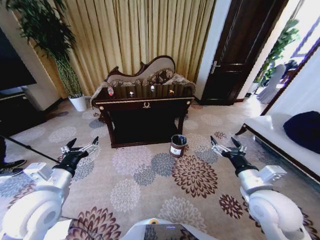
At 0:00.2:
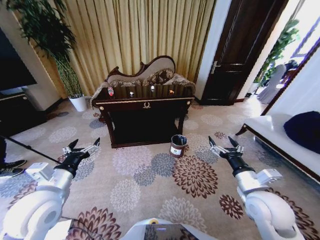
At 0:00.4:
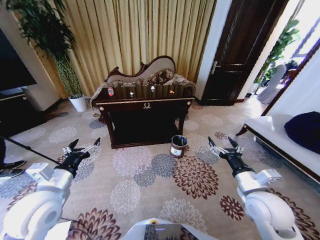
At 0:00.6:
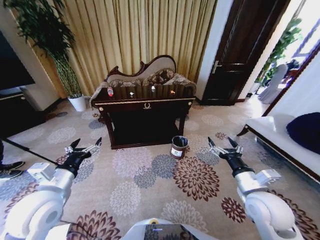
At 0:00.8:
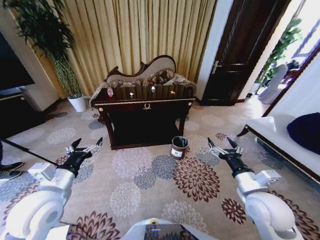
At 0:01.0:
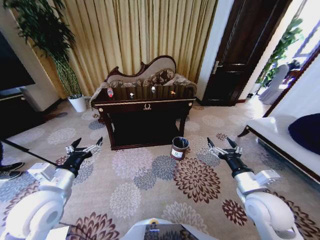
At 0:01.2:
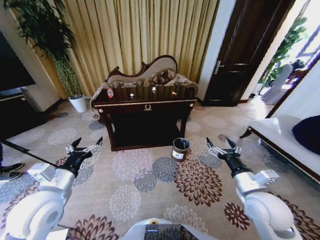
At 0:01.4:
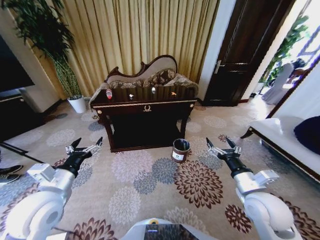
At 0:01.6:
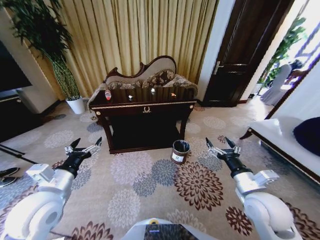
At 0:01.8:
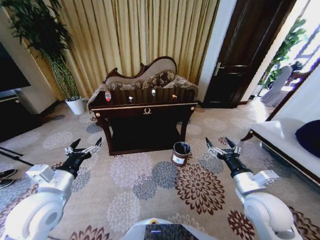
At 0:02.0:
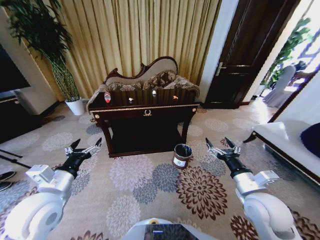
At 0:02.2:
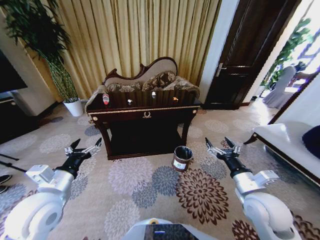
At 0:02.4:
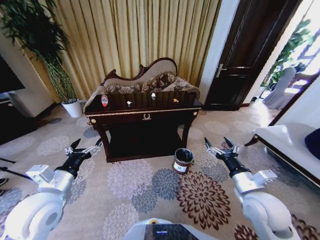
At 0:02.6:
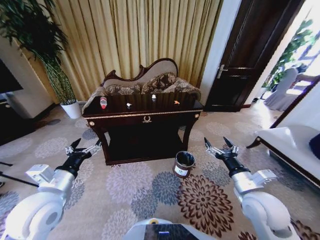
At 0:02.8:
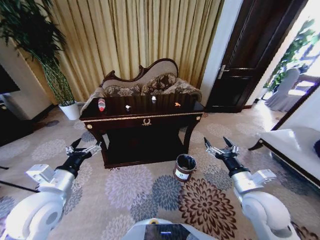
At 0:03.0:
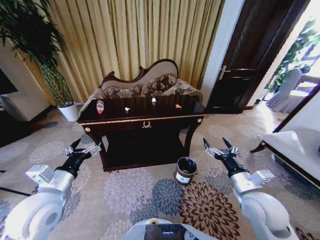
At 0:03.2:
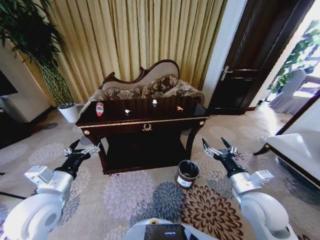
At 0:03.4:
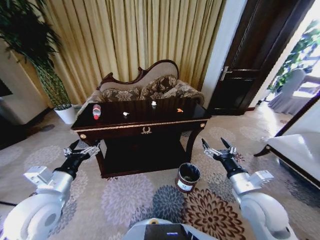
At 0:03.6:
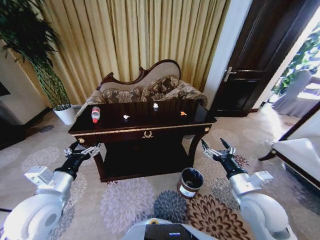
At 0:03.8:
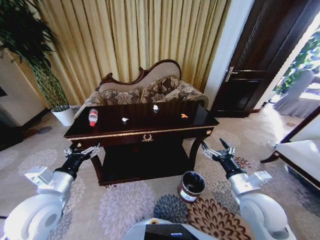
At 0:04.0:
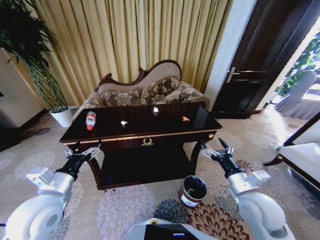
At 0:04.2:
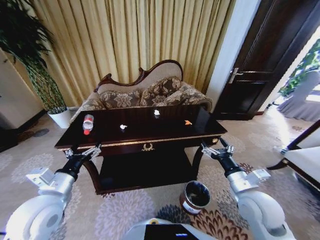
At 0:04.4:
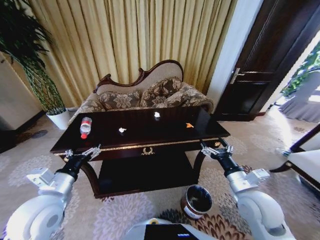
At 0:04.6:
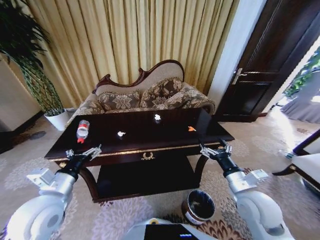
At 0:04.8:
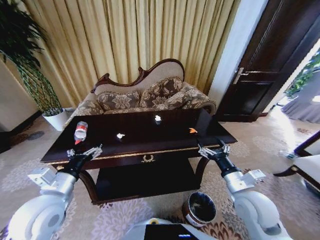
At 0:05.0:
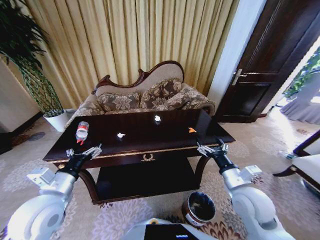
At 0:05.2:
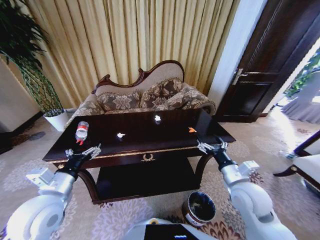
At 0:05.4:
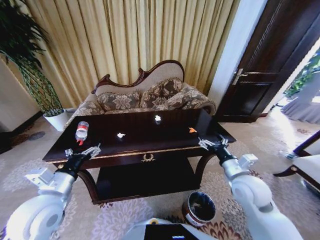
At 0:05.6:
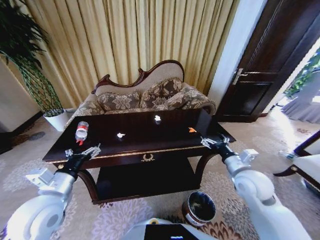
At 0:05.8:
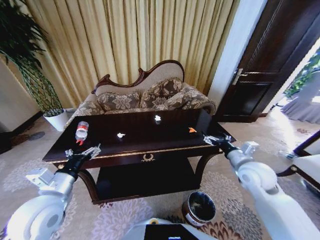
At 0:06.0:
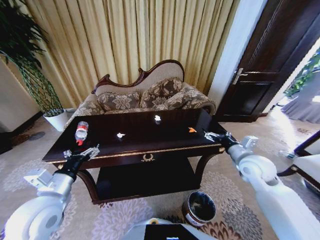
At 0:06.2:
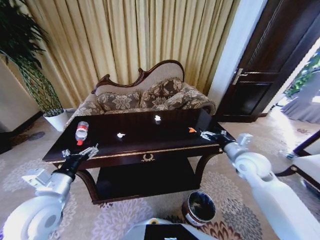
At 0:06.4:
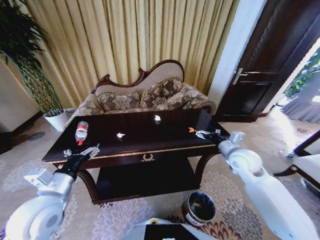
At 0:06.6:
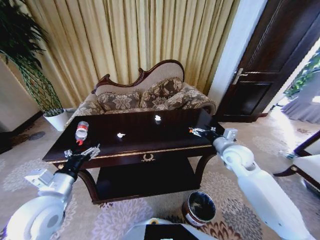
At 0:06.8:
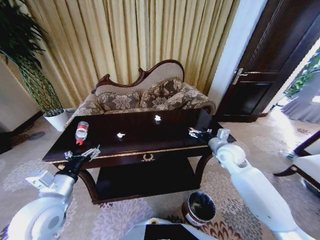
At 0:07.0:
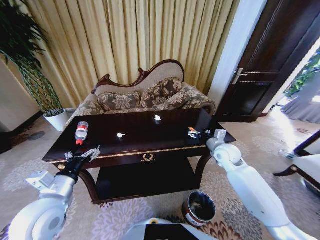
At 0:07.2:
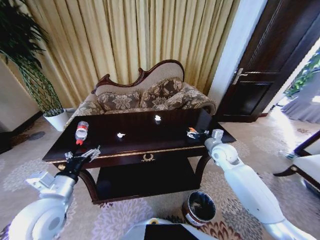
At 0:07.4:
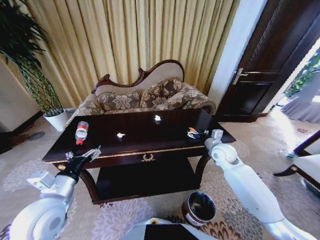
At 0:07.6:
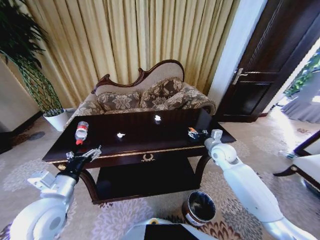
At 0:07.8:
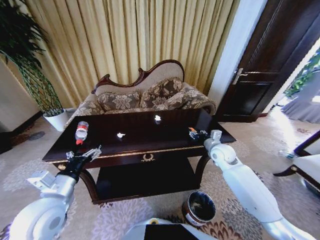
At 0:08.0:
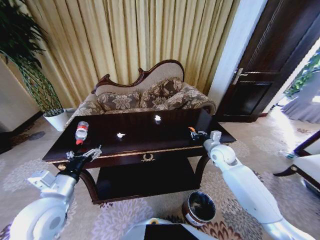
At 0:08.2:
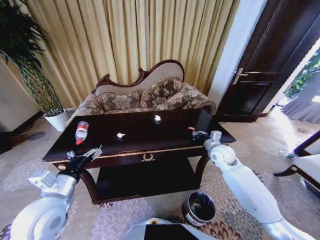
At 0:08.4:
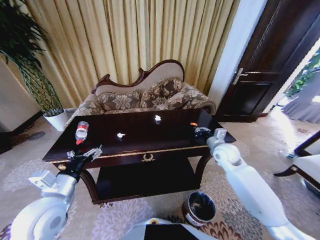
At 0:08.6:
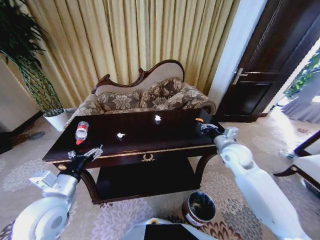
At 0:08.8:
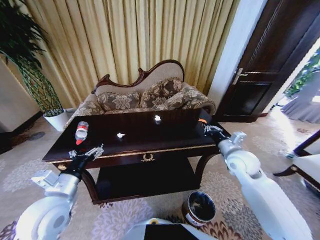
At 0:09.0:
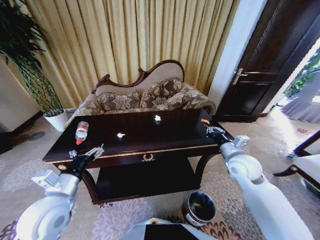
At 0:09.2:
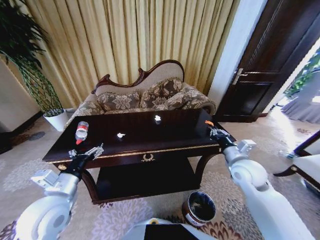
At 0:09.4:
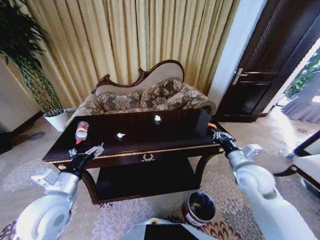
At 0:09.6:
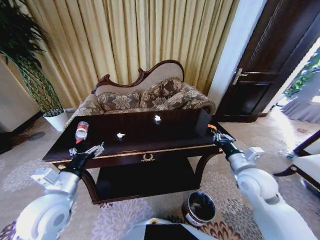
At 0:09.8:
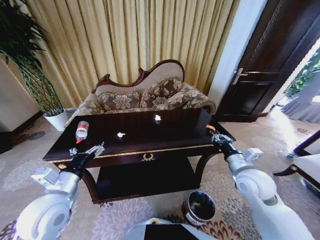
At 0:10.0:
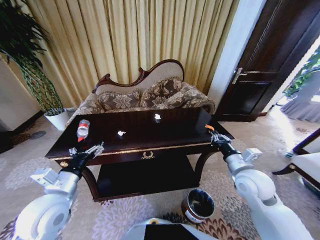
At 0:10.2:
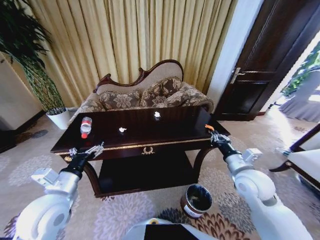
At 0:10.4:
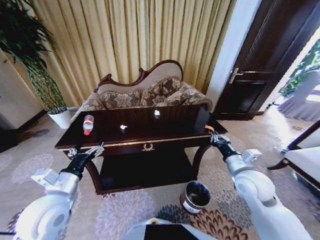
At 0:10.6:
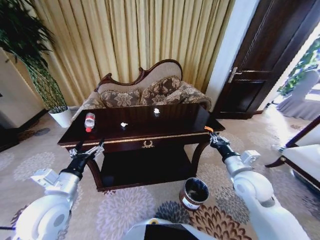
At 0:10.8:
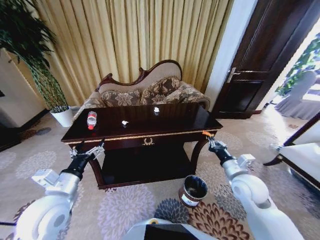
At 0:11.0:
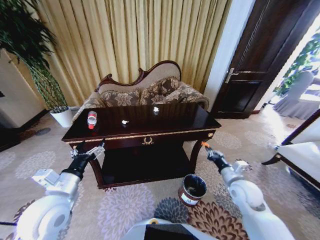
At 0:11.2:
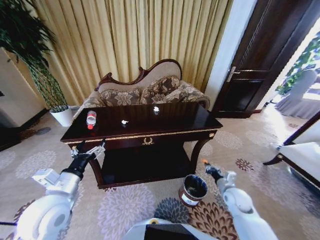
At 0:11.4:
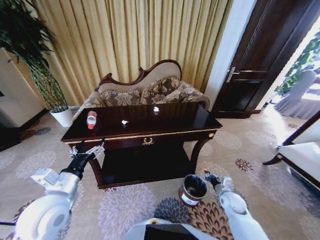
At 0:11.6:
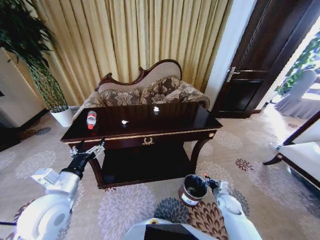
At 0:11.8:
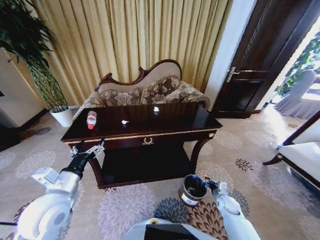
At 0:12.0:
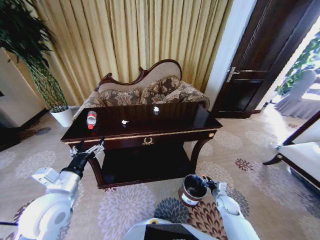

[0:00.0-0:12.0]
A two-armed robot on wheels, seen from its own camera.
Task of the whole recording: Move to the front of the table and place the trash on the table into the trash bin.
0:04.4 to 0:06.0: The right gripper goes about 15 cm forward and to the right.
0:06.0 to 0:07.6: The right gripper is displaced forward and downward by some 10 cm.
0:07.6 to 0:09.0: The right gripper is displaced backward by about 10 cm, and closes up.
0:09.0 to 0:10.4: The right gripper shifts about 5 cm backward.
0:10.4 to 0:12.0: The right gripper moves downward, some 30 cm.

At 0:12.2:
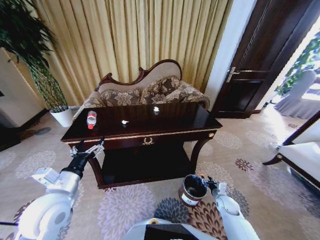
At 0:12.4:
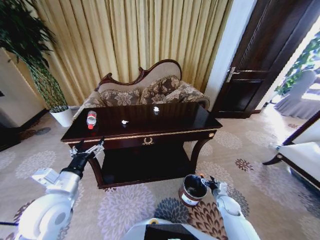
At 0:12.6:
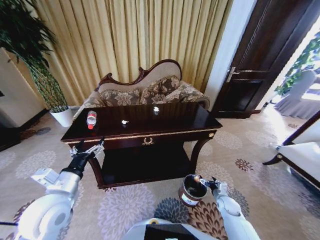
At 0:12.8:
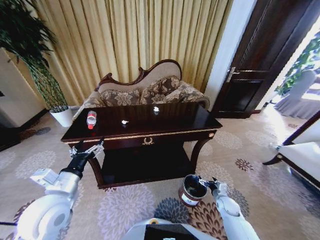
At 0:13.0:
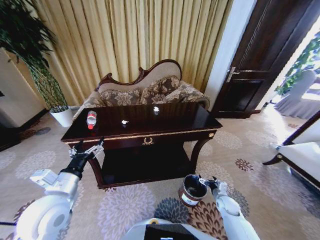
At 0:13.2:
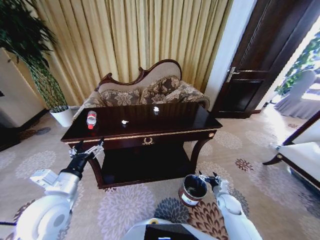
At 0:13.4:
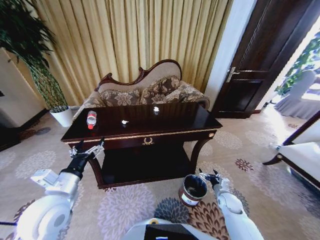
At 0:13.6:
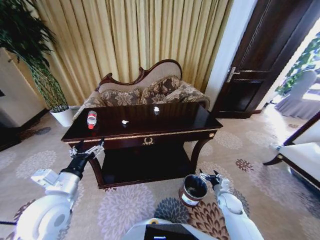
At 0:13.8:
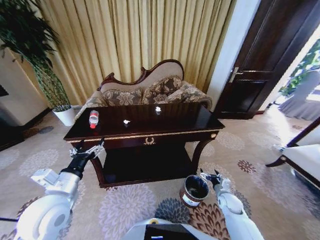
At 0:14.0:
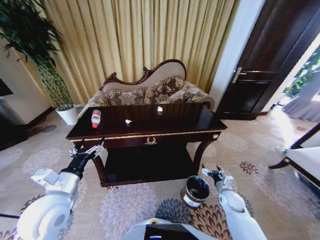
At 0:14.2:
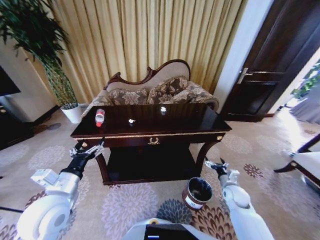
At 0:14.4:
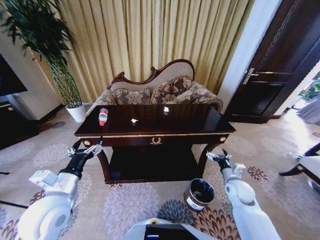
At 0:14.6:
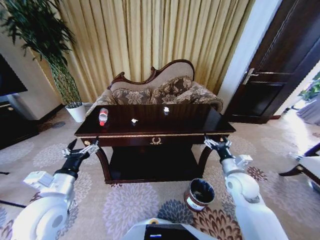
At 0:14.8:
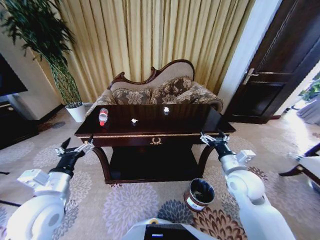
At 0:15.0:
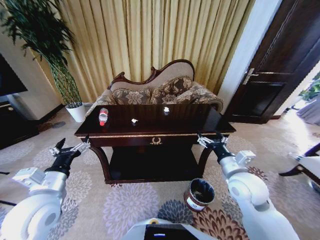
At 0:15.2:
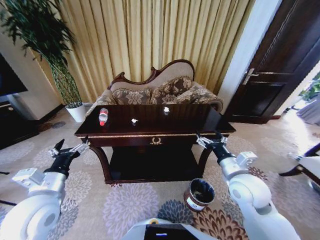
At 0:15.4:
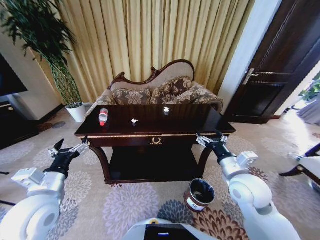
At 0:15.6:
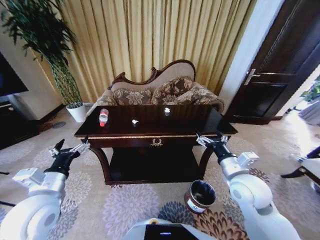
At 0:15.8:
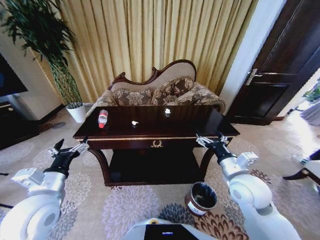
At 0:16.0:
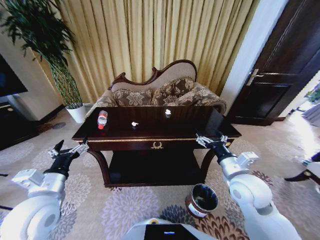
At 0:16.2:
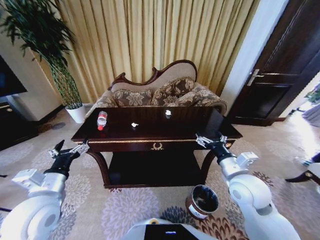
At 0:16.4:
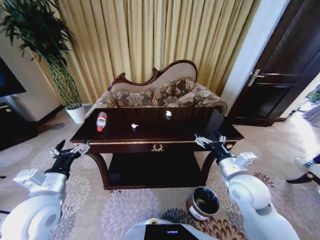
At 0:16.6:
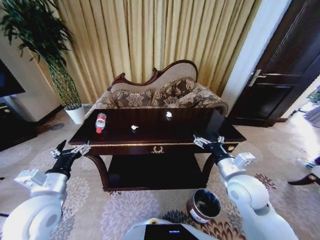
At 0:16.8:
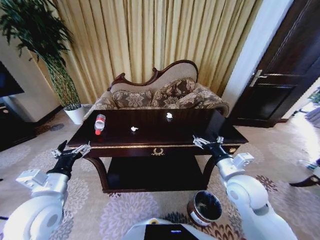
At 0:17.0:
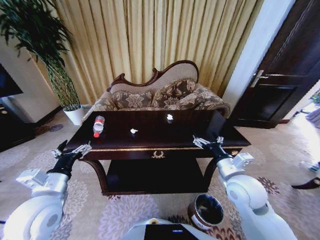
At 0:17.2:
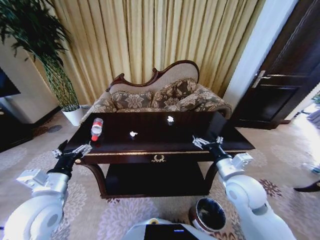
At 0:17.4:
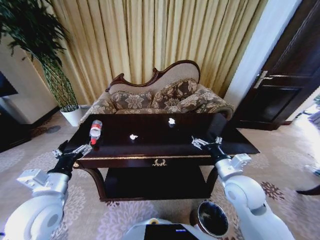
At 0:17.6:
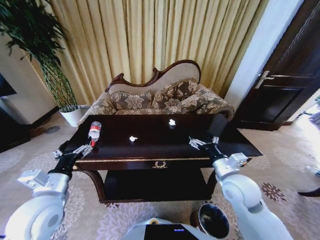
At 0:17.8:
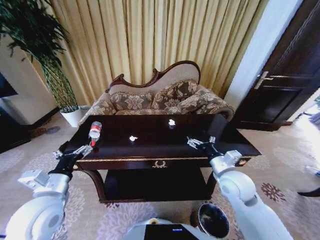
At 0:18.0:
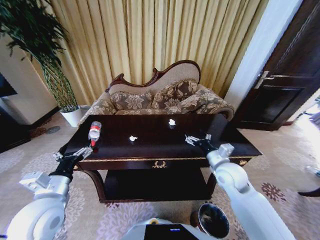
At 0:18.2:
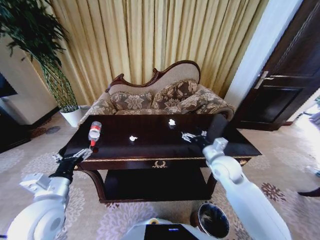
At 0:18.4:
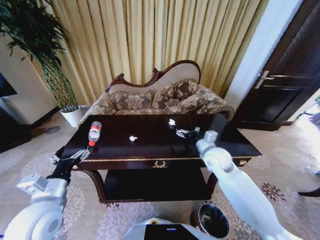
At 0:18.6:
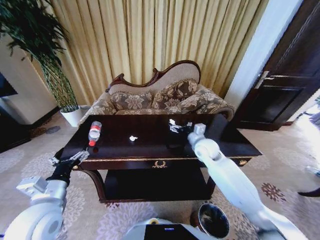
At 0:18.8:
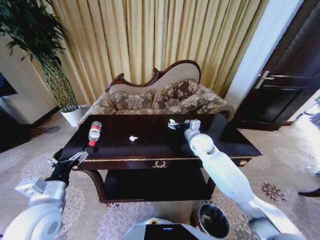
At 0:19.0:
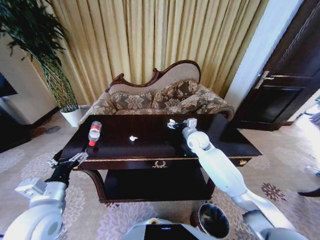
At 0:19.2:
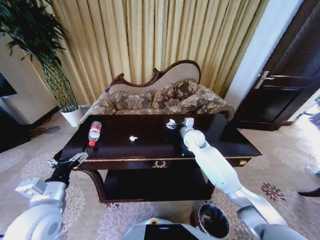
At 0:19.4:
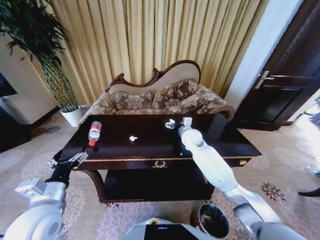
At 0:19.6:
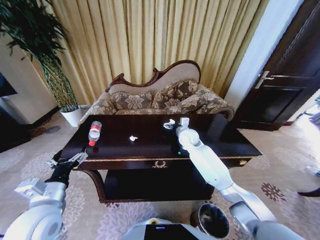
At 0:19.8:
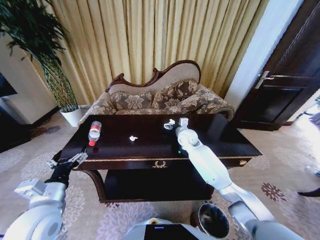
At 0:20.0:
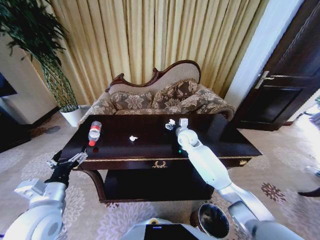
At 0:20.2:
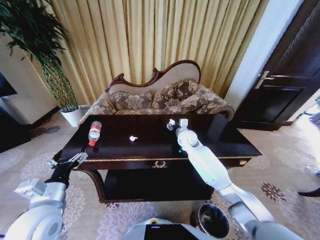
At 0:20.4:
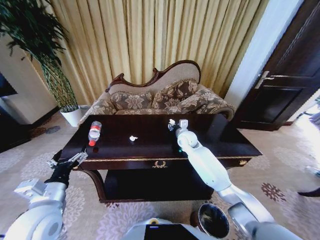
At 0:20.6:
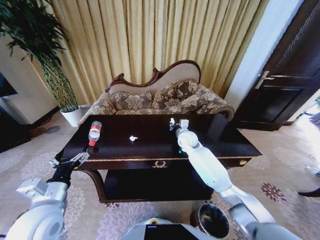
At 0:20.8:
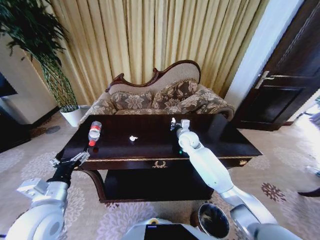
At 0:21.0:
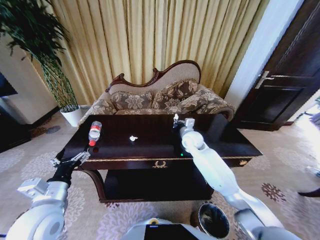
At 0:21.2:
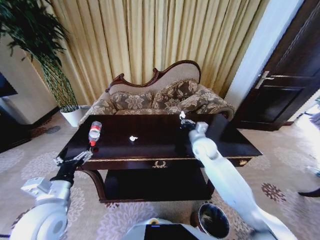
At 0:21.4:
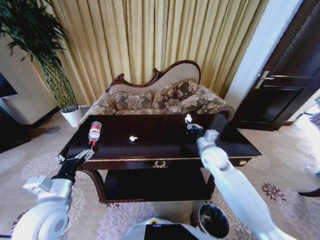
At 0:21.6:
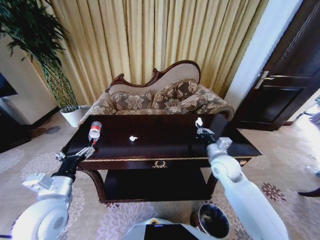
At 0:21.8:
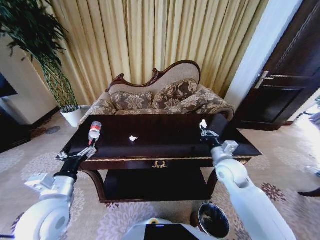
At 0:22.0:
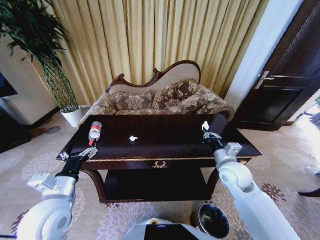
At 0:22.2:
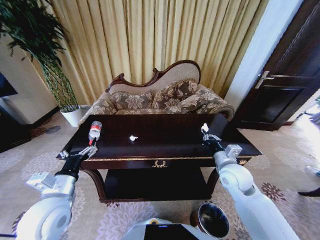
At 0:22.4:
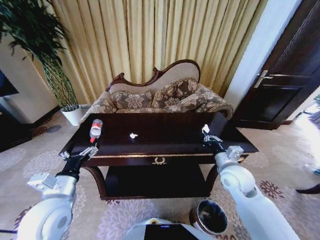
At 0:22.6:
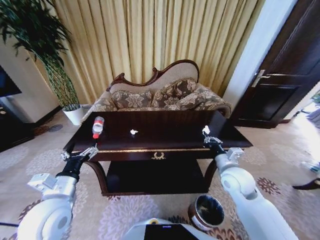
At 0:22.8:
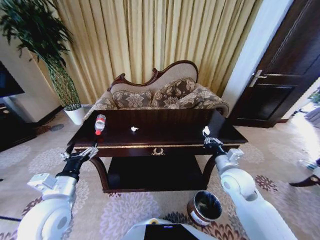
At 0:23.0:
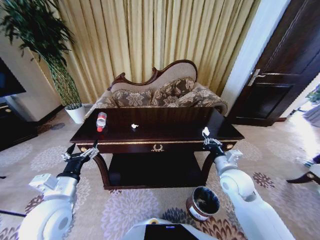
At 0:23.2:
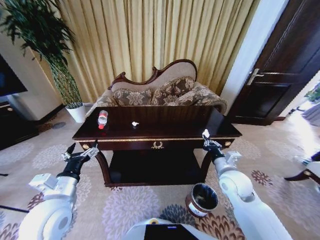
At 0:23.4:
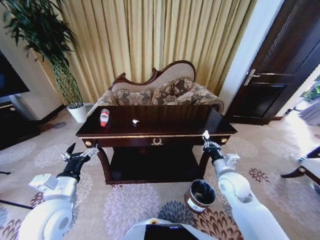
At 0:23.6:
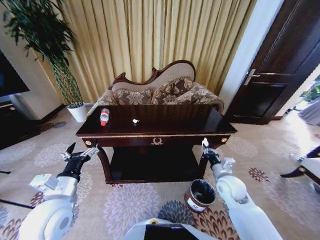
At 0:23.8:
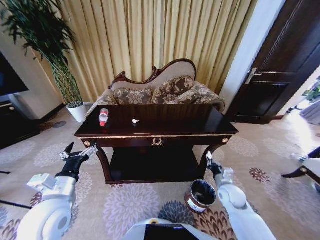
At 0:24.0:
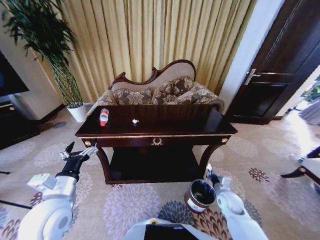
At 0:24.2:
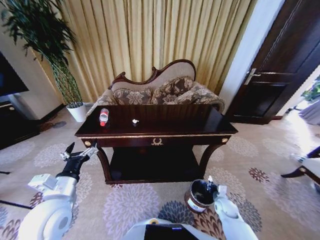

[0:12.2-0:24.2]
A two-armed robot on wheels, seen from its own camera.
Task of the whole recording: Move to the front of the table and place the trash on the table into the trash bin.
0:12.2 to 0:13.8: The right gripper opens.
0:13.8 to 0:15.2: The right gripper shifts roughly 30 cm upward.
0:16.6 to 0:18.2: The right gripper travels forward by about 10 cm.
0:18.2 to 0:19.8: The right gripper heads forward and to the left, covering about 20 cm.
0:19.8 to 0:21.2: The right gripper is displaced backward and to the right by roughly 10 cm, and closes.
0:21.2 to 0:22.6: The right gripper is displaced backward and to the right by approximately 15 cm.
0:22.6 to 0:24.2: The right gripper moves downward, roughly 30 cm.
